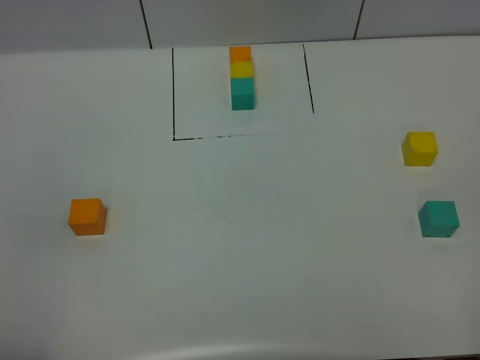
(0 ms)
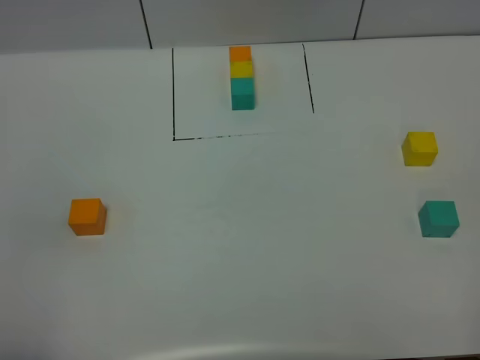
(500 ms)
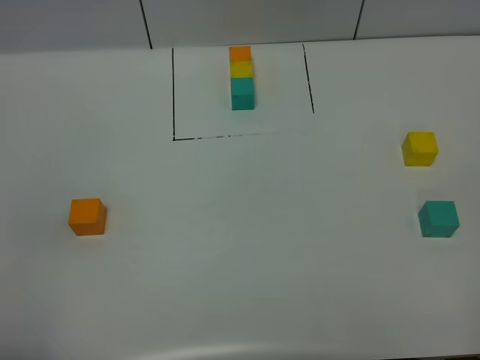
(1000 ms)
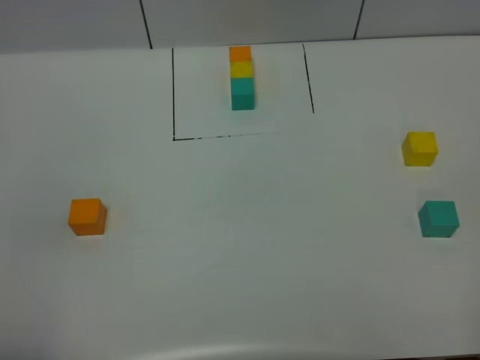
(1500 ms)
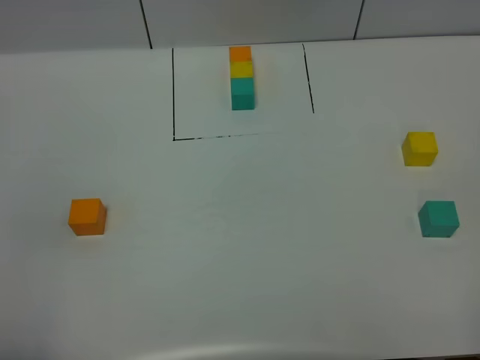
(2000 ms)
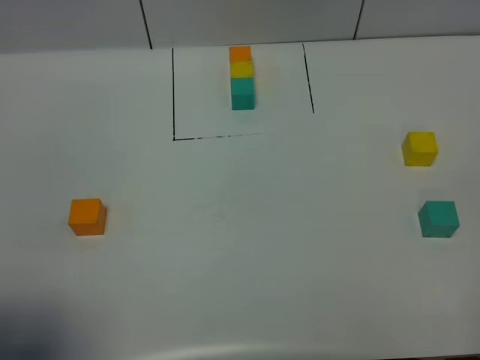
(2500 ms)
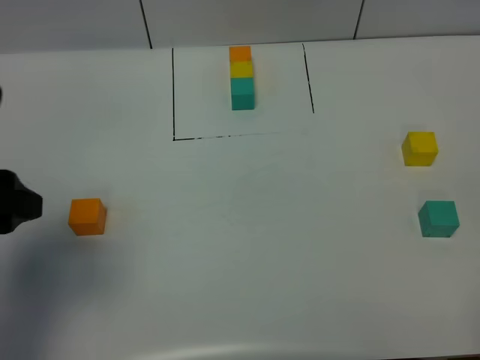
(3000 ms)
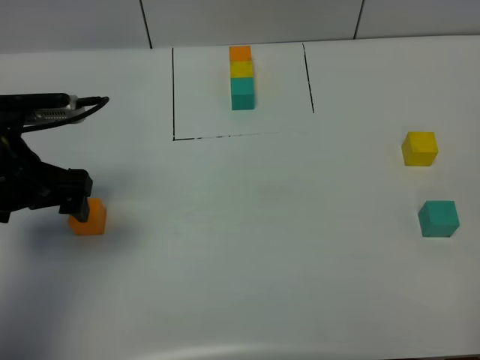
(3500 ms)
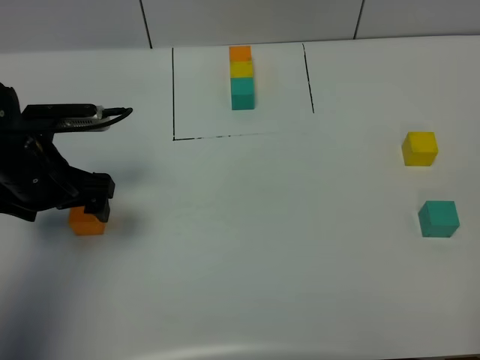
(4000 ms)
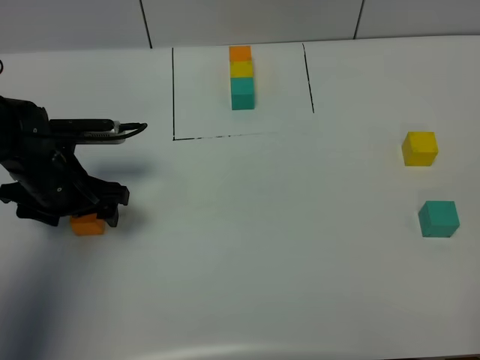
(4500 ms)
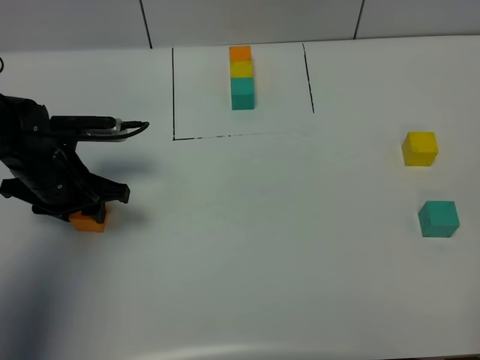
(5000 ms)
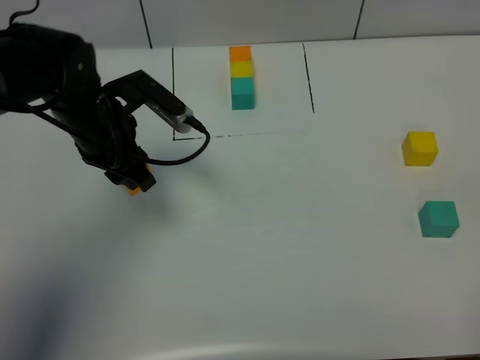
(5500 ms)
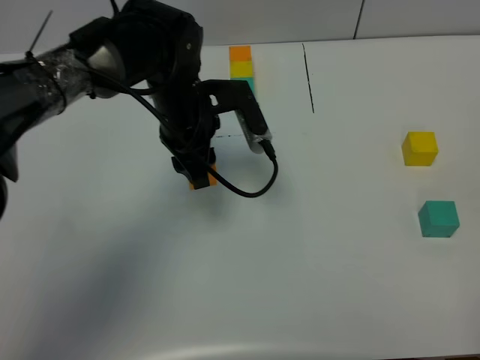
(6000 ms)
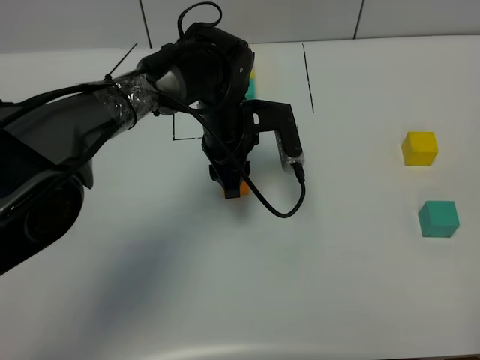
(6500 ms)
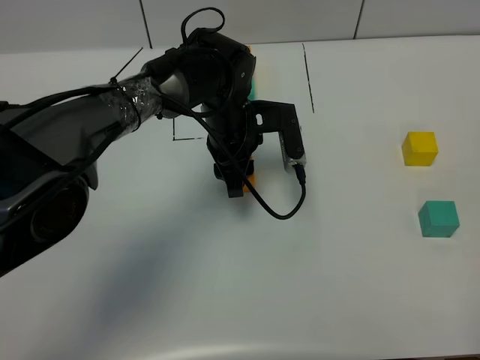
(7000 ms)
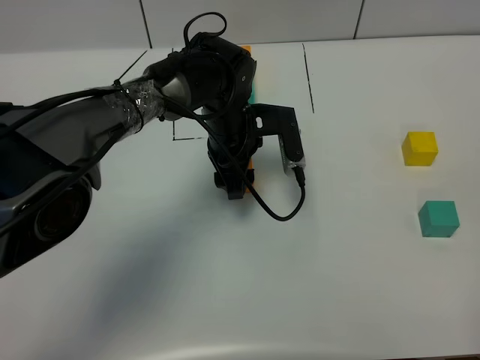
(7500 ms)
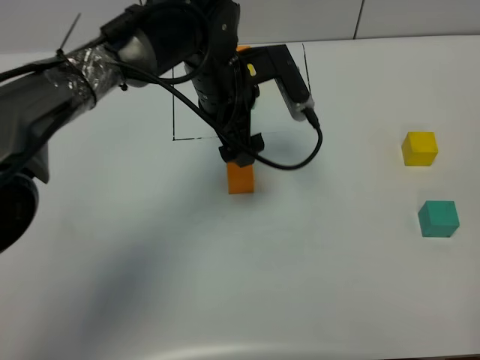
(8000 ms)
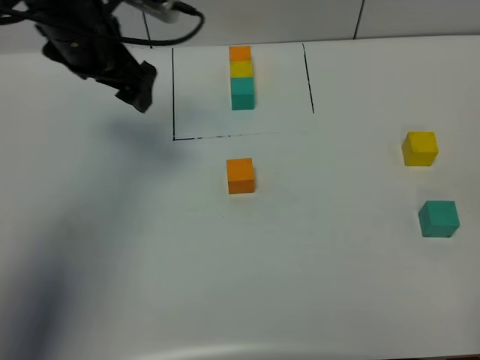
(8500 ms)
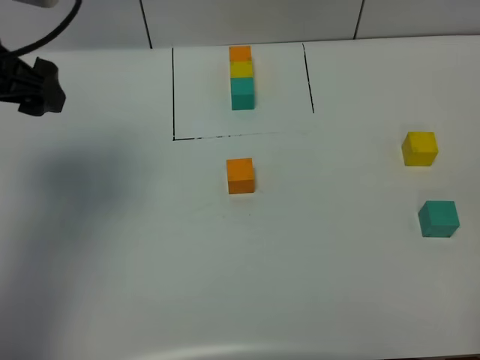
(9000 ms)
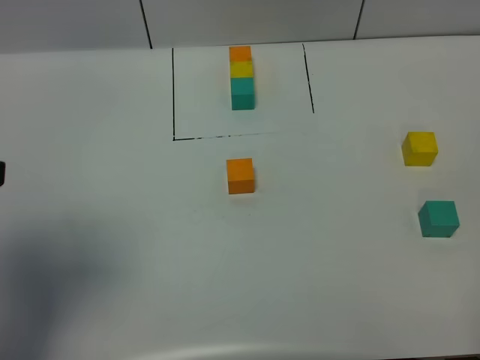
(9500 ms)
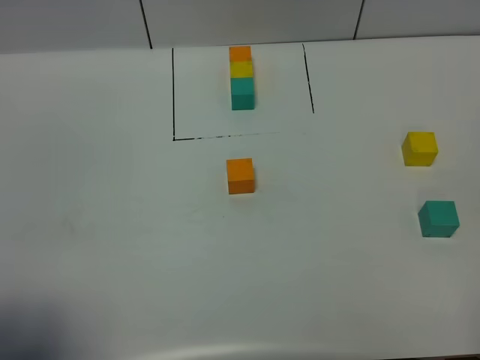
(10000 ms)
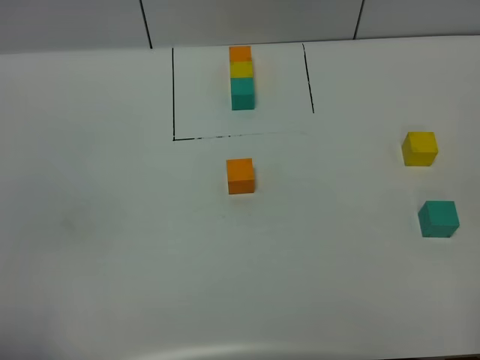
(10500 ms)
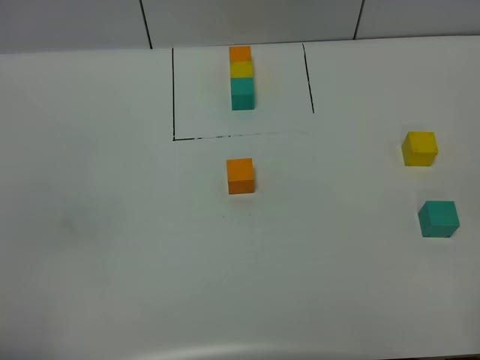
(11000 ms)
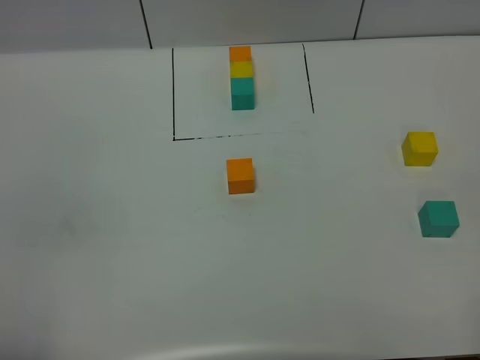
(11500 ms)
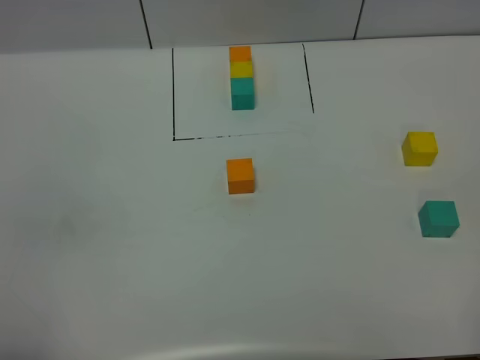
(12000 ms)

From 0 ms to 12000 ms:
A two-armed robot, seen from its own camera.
Task of the whole recording: According to the building block template in front, assemble the scattered blocks together.
Step, from 3000 ms to 7500 ms: Put the orange cube in the center of the table.
From 0 ms to 2000 ms: The two grippers keep their place.
From 2000 ms to 4000 ms: The left gripper travels forward by roughly 30 cm, and opens.
From 4000 ms to 6000 ms: The left gripper travels to the right and forward by about 20 cm, and closes its fingers.
From 6000 ms to 8000 ms: The left gripper moves some 5 cm, and opens.
From 8000 ms to 10000 ms: The left gripper heads backward and to the left, covering approximately 40 cm.
From 10000 ms to 12000 ms: The left gripper moves backward, roughly 5 cm, and closes up.

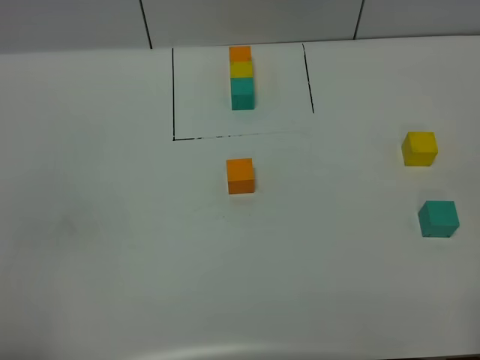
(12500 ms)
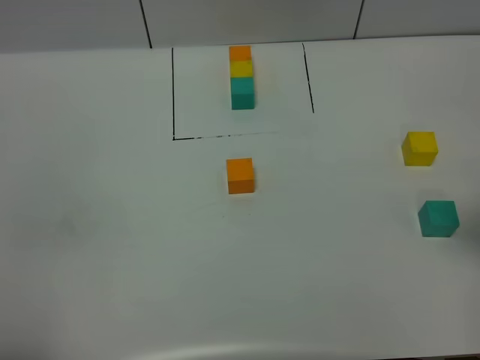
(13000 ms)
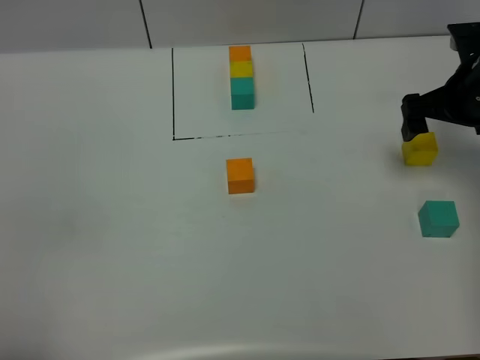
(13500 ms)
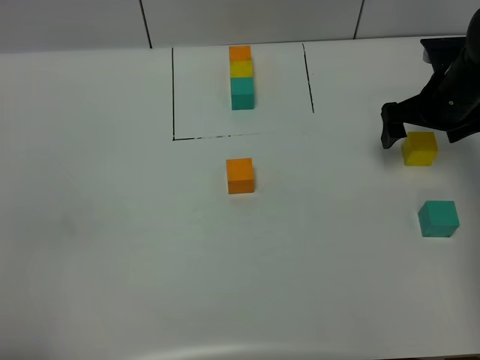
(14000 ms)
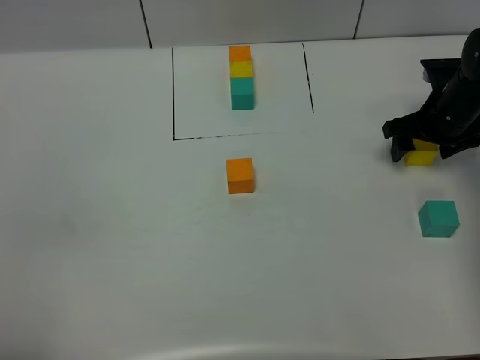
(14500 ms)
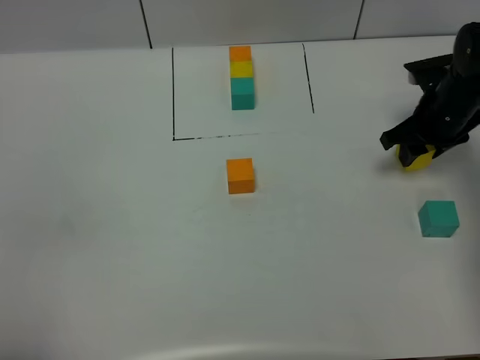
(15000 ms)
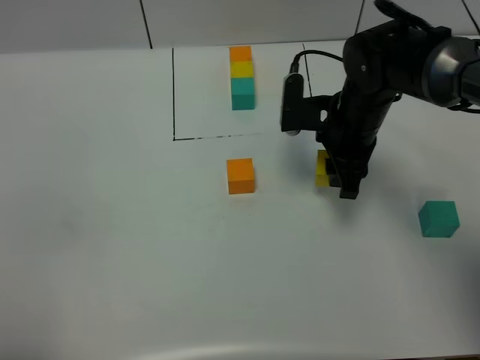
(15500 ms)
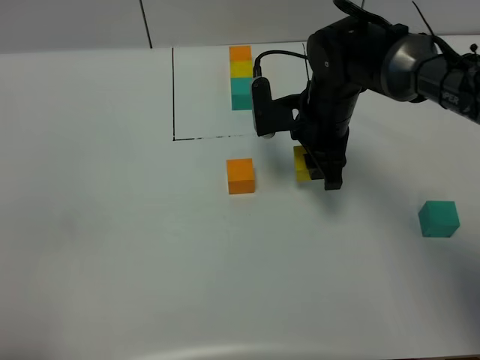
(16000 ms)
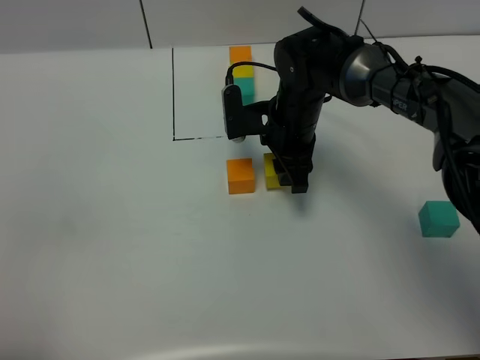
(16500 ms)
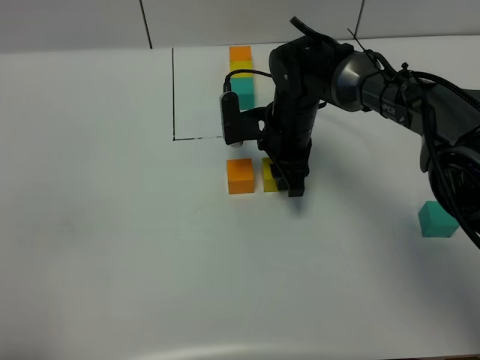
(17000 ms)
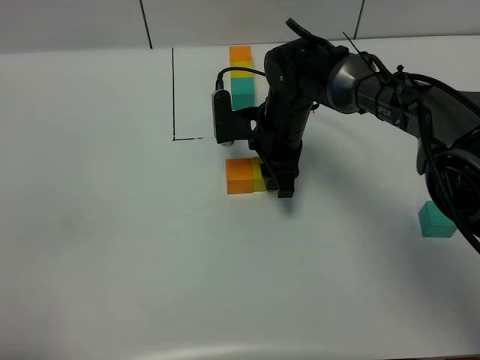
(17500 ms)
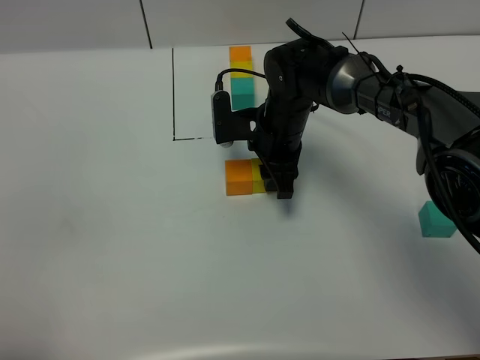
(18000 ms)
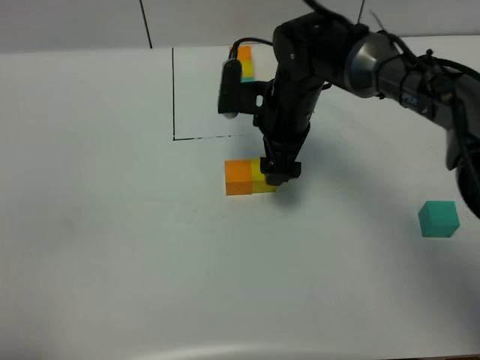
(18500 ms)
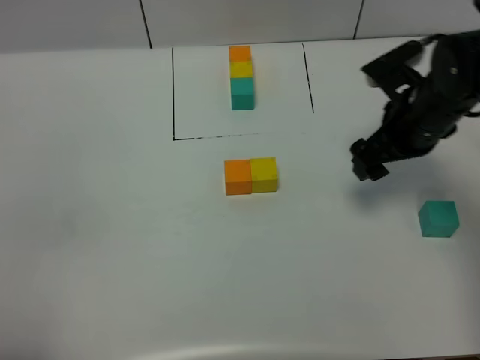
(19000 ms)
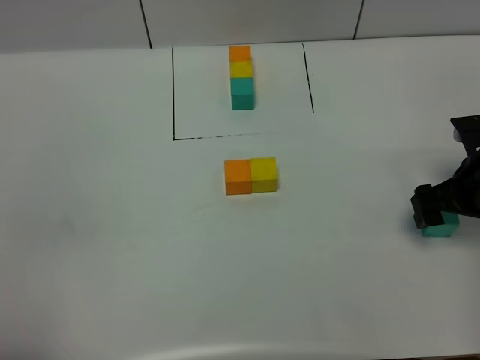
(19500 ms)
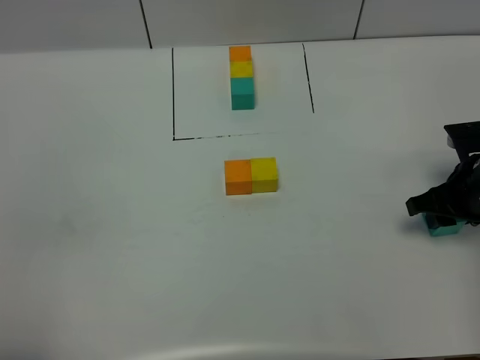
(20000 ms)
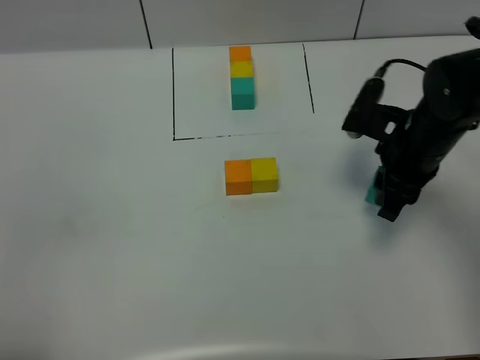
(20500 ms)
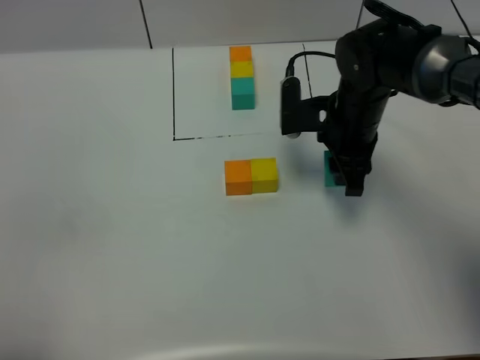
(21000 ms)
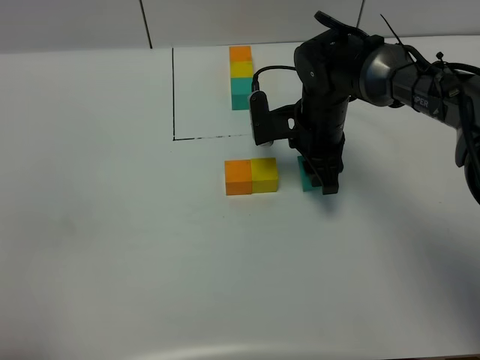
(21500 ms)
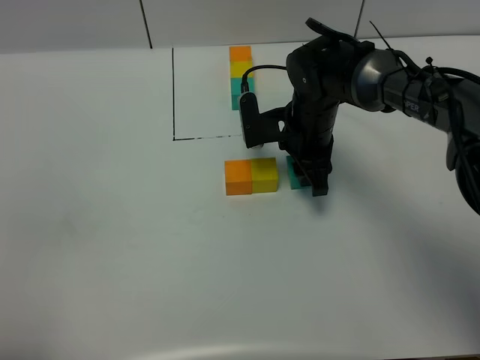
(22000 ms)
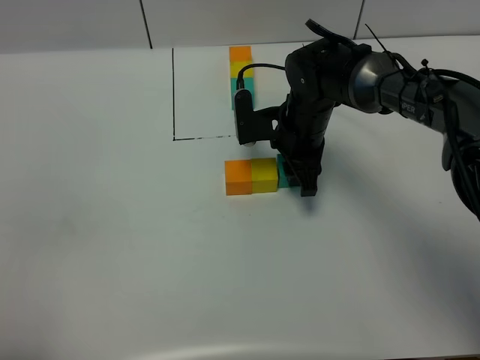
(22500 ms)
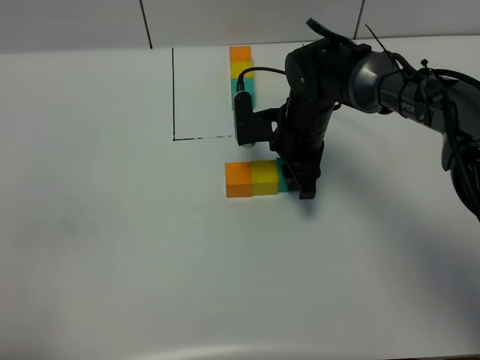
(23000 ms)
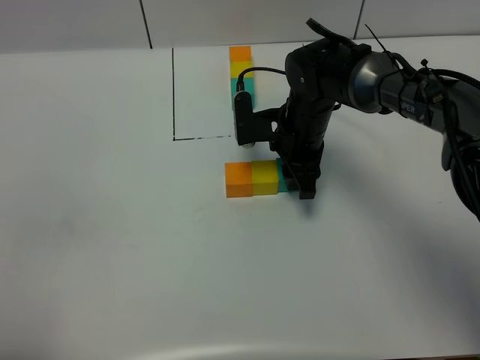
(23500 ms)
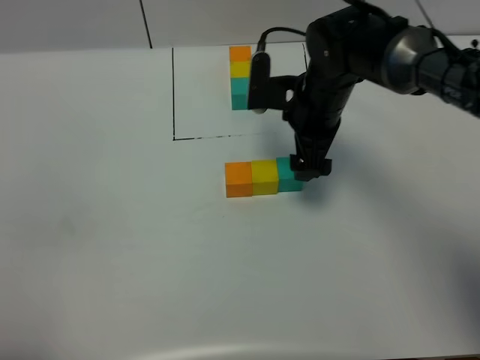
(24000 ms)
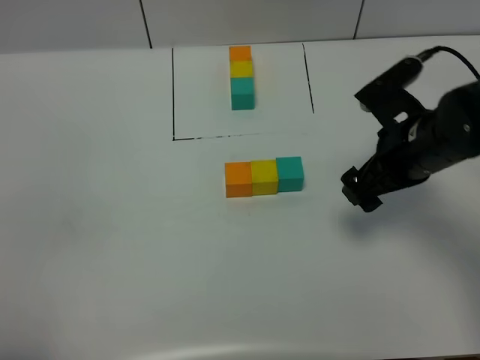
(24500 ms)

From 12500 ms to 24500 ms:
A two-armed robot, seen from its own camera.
Task of the whole recording: According to the building block template in front, assemble the scattered blocks together.
Step, from 12500 ms to 18000 ms: Put the yellow cube on the right of the orange cube.
Step, from 18500 ms to 23500 ms: Put the green cube on the right of the yellow cube.
From 12500 ms to 14500 ms: The right gripper travels forward and downward by about 40 cm, and closes.
From 14500 ms to 16500 ms: The right gripper shifts some 20 cm to the left, and closes.
From 16500 ms to 18500 ms: The right gripper opens up.
From 18500 ms to 20500 ms: The right gripper heads to the right and backward, covering about 15 cm, and closes.
From 20500 ms to 22500 ms: The right gripper heads to the left, forward and downward, covering some 15 cm.
From 22500 ms to 24500 ms: The right gripper goes some 20 cm to the right, backward and upward, and opens its fingers.

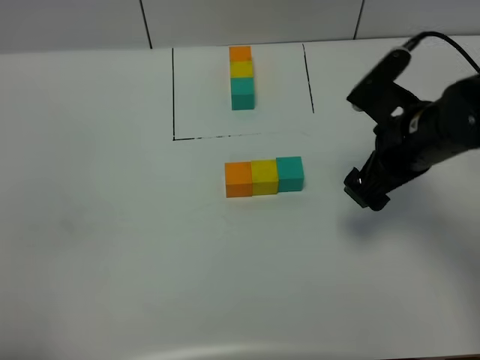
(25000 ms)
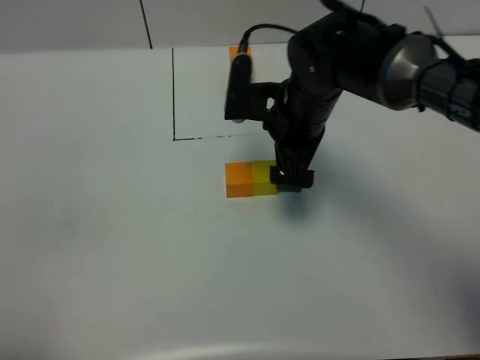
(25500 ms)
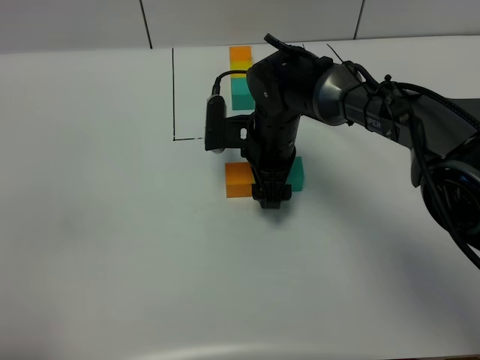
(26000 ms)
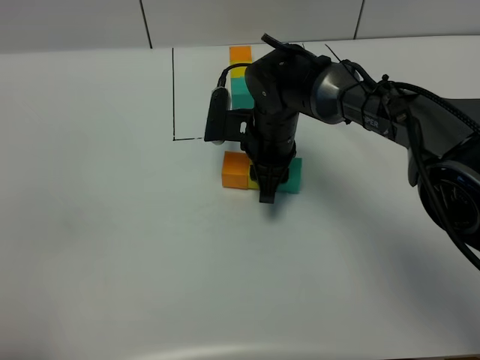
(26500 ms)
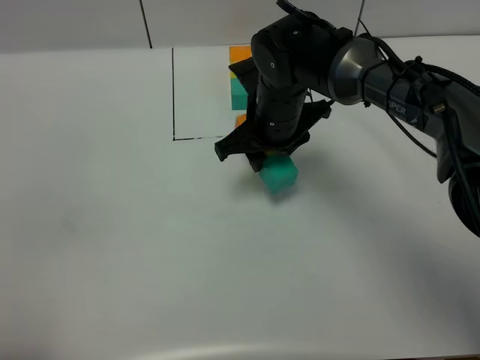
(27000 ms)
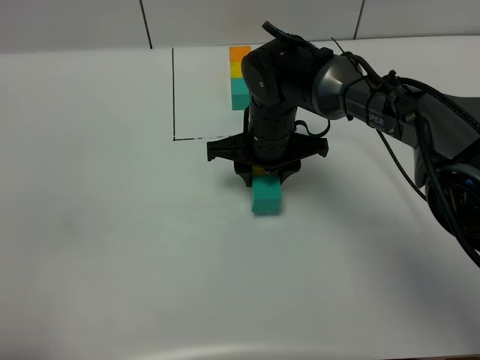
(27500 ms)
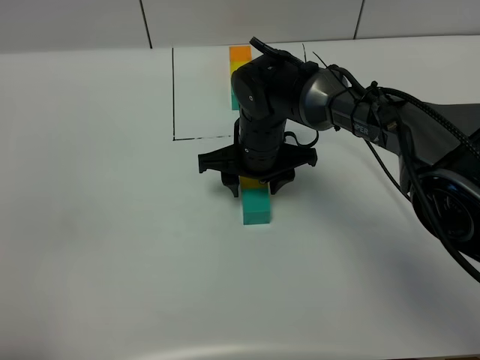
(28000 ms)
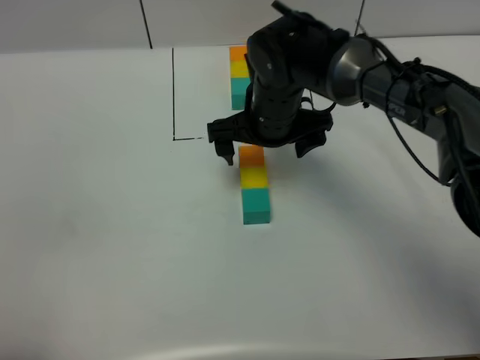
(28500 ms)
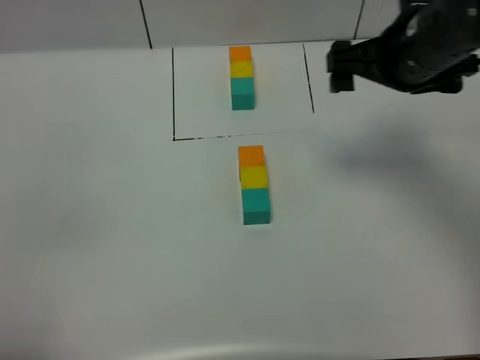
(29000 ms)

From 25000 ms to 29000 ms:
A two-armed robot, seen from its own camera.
Task of the whole recording: According to the building block template in front, assemble the scattered blocks together.
Step, from 25000 ms to 28000 ms: Adjust the pose of the building blocks.
From 25000 ms to 27000 ms: The right gripper goes about 15 cm to the left and forward, and closes.
From 27000 ms to 29000 ms: The right gripper shifts approximately 20 cm to the right and upward, and opens up.
